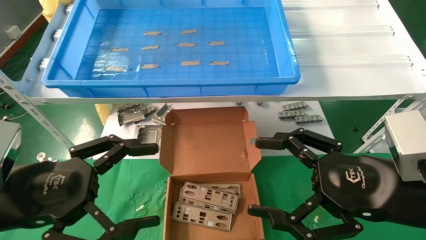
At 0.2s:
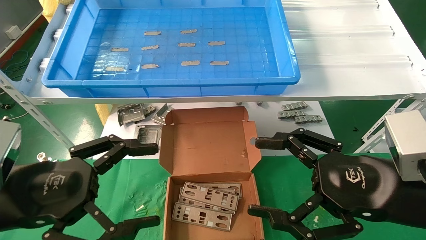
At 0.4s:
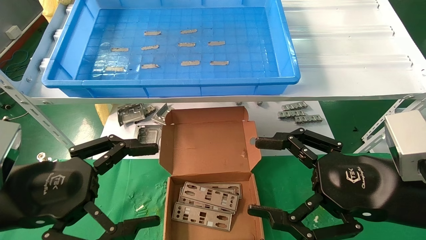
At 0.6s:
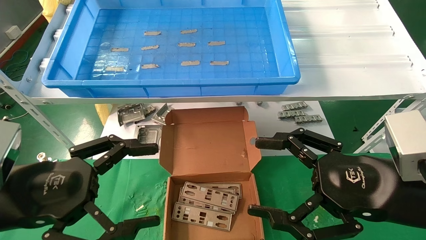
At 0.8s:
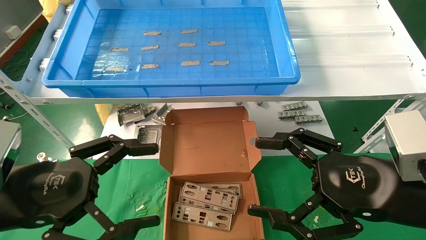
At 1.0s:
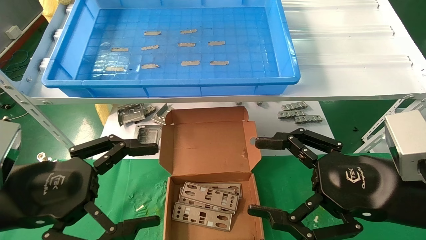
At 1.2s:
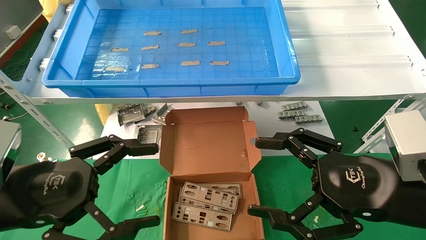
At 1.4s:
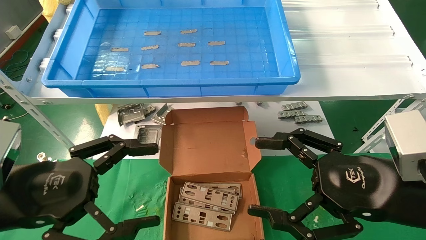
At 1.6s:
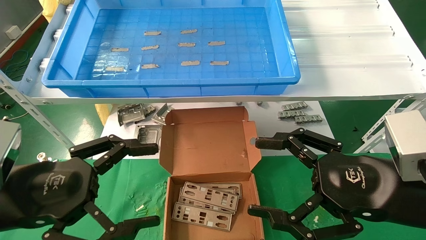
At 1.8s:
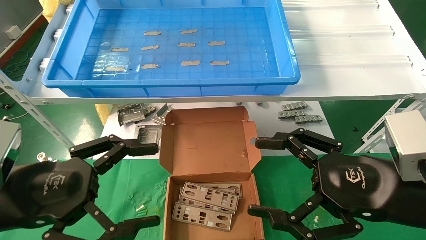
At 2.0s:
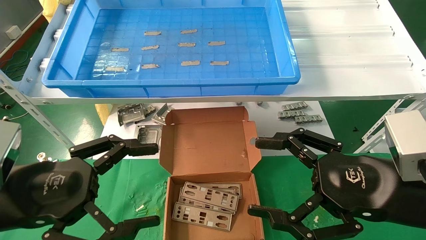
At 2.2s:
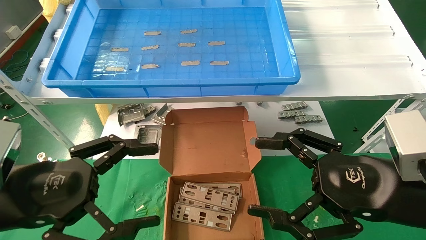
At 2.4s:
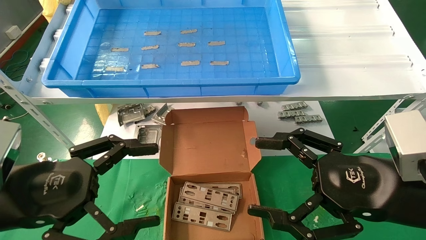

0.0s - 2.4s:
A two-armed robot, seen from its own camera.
Task of the whole recording: pick up the parts on the tray and put them in the cardboard box.
0.0s - 2.4s: The two grippers keep their place.
